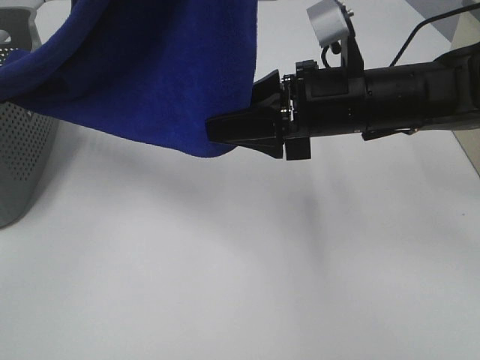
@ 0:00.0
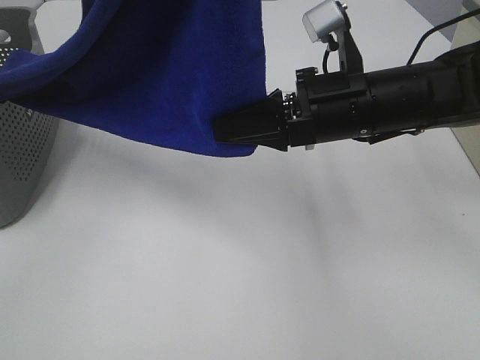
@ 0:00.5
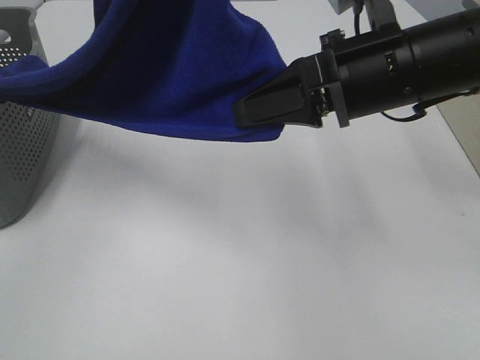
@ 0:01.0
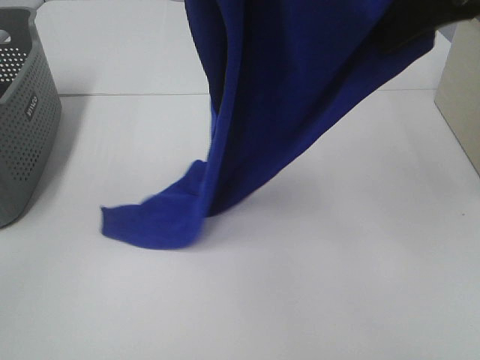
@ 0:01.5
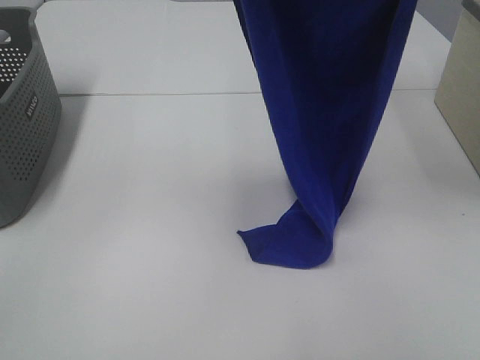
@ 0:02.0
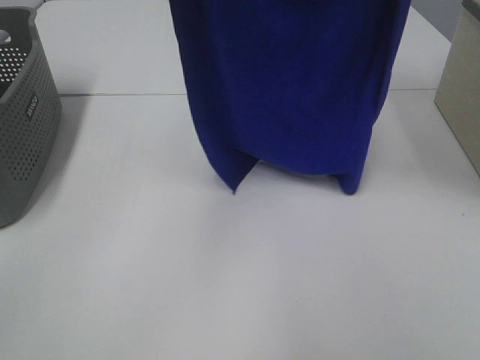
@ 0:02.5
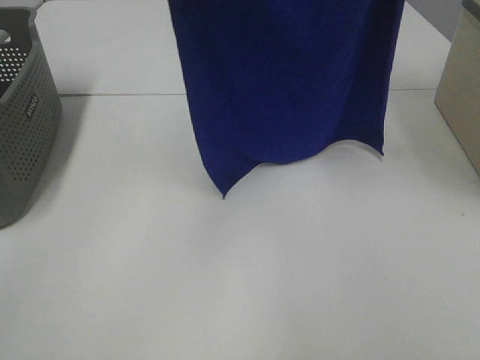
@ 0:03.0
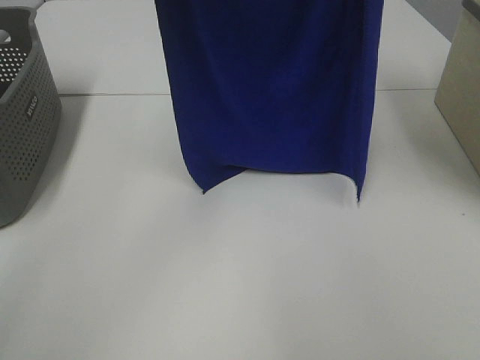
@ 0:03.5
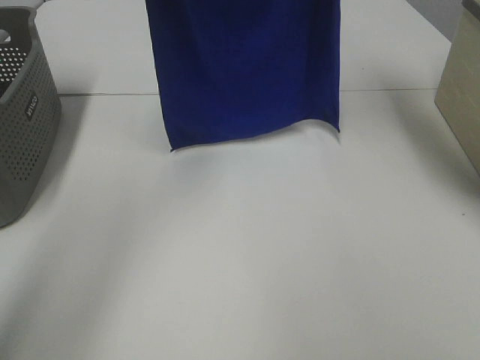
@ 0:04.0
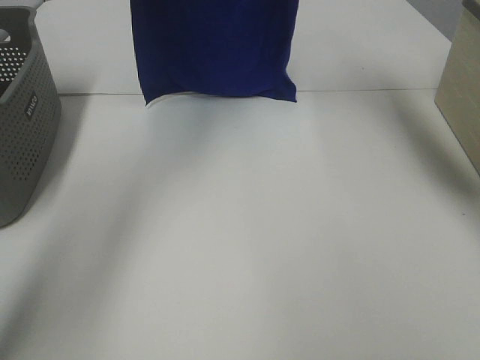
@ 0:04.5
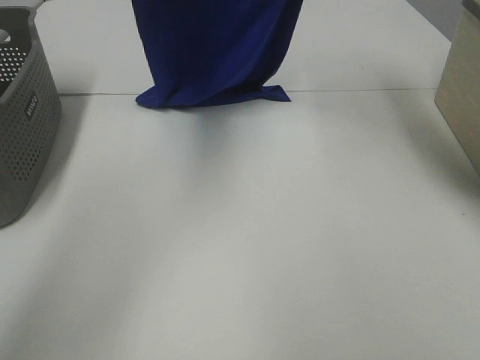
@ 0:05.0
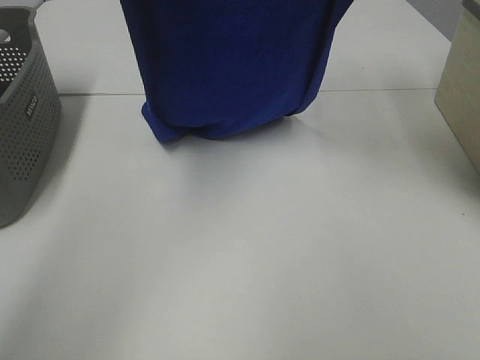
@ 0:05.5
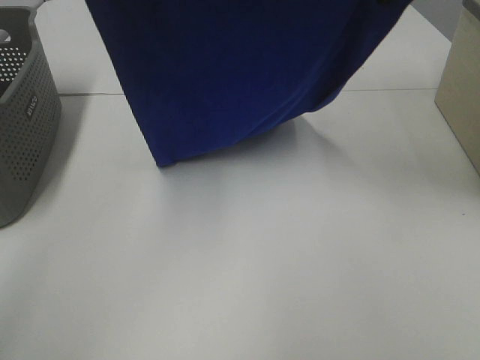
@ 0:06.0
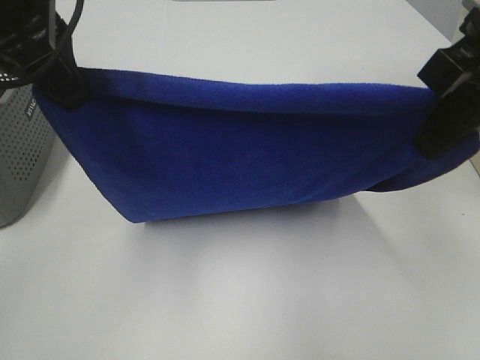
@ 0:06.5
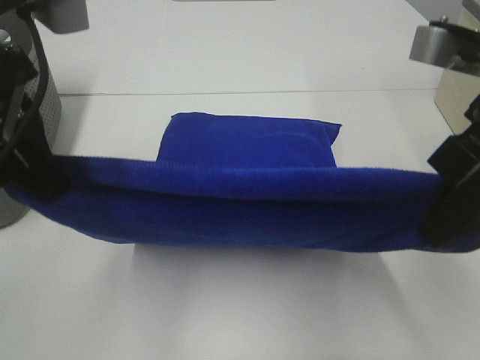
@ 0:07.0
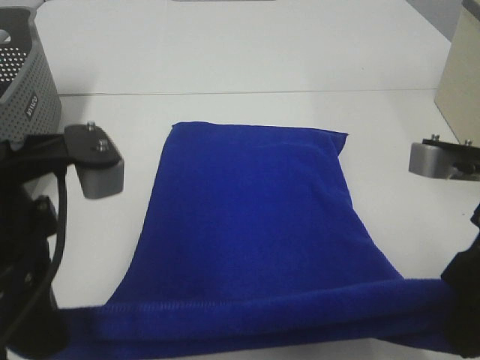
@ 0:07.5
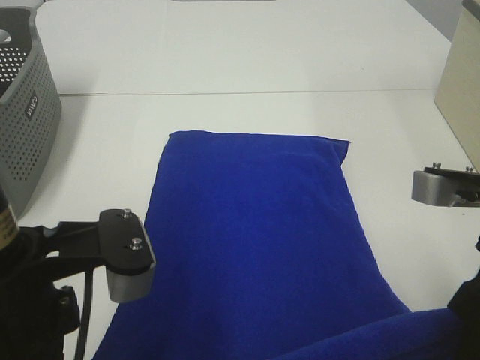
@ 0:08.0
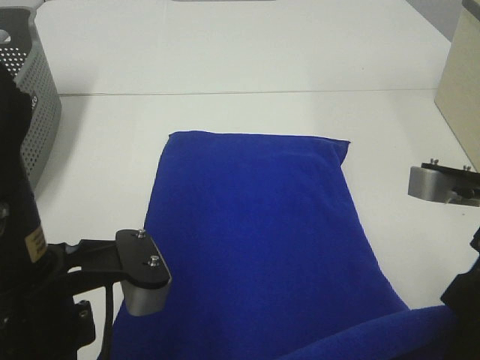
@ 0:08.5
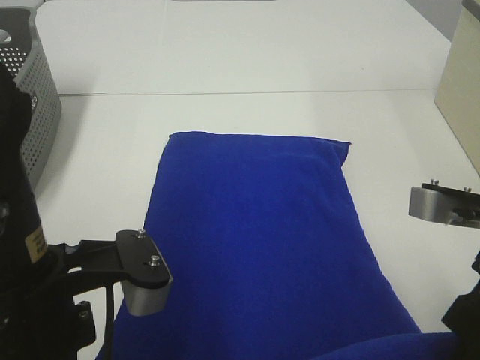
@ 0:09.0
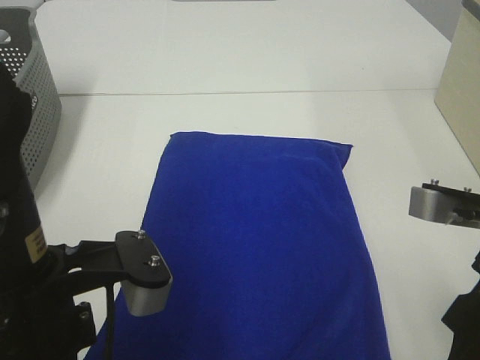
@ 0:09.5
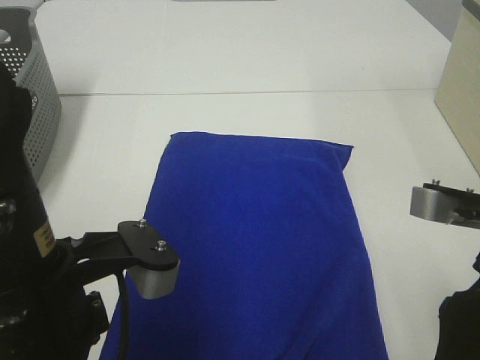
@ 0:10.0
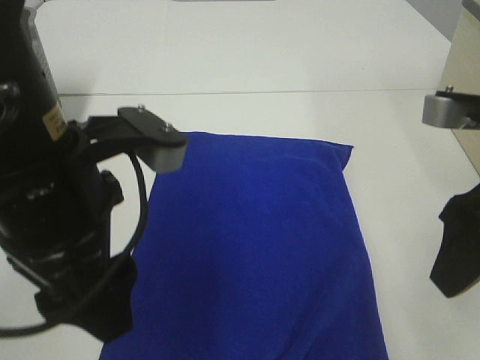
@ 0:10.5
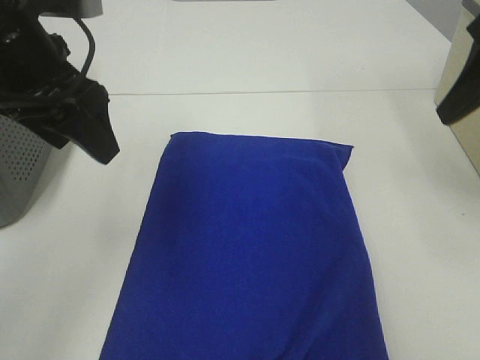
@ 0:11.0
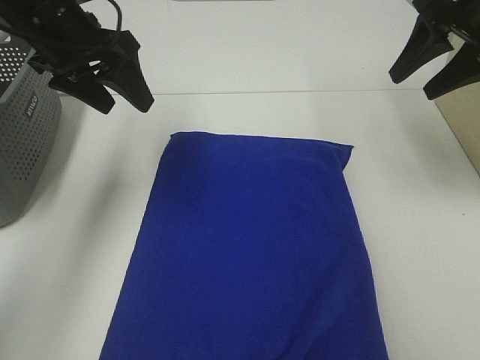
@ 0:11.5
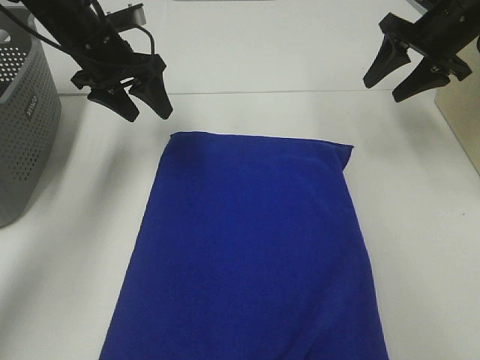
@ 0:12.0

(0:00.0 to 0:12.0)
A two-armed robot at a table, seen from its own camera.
Task of the whole recording: Remove the towel and place it.
Step, 0:00.5 - 0:05.5: Left hand: spread the blue towel flat on the table.
Step, 0:00.5 - 0:05.5: Right hand: spread the blue towel flat on the table.
0:00.0 - 0:02.0: The right gripper is displaced upward by about 25 cm, and closes its fingers. The left gripper moves forward, some 5 cm.
0:02.0 - 0:04.0: Both grippers move forward, roughly 15 cm.
0:04.0 - 0:06.0: Both grippers move backward and downward, roughly 15 cm.
0:06.0 - 0:08.0: The grippers both shift backward and downward by approximately 25 cm.
0:08.0 - 0:10.0: The right gripper opens its fingers, while the left gripper opens its fingers.
0:10.0 - 0:12.0: The two grippers go some 35 cm forward.

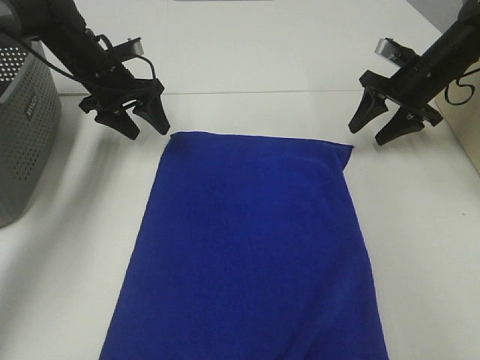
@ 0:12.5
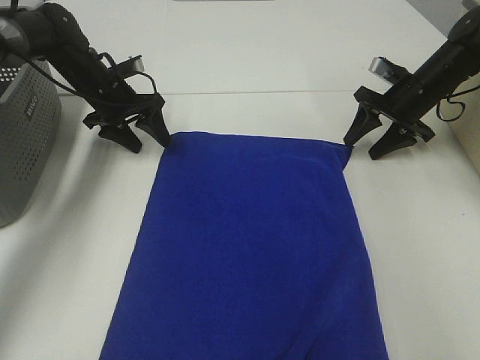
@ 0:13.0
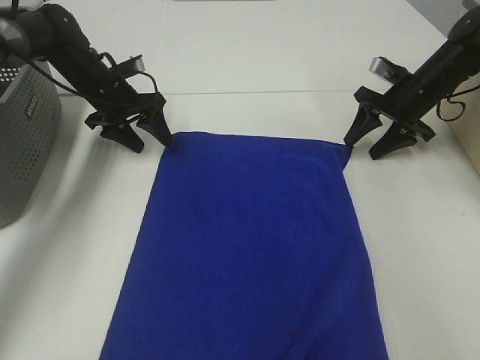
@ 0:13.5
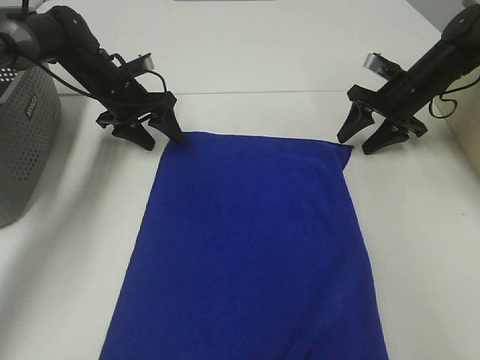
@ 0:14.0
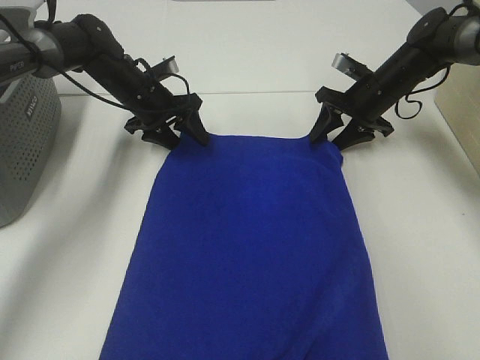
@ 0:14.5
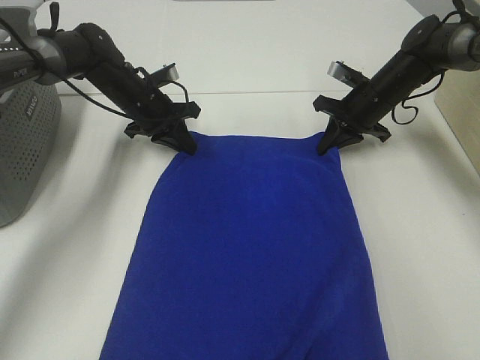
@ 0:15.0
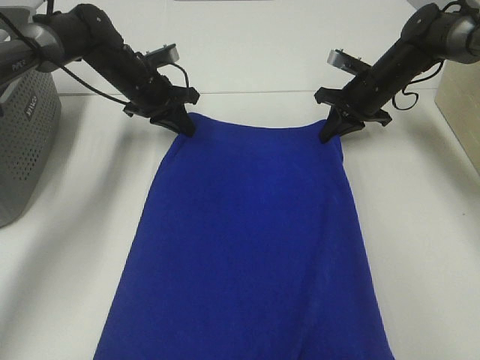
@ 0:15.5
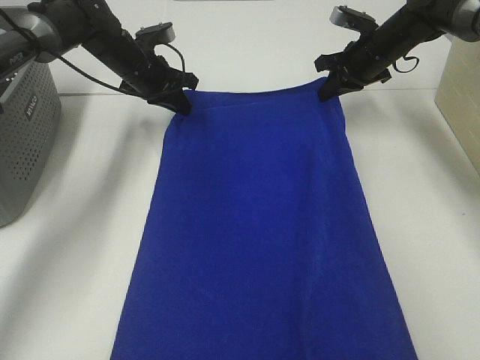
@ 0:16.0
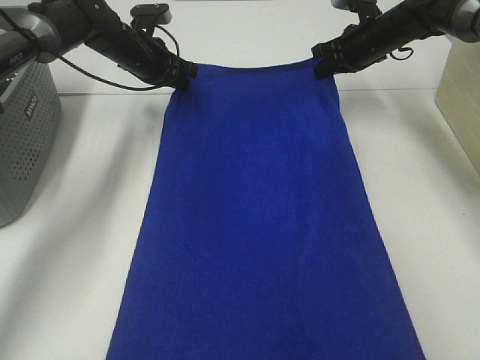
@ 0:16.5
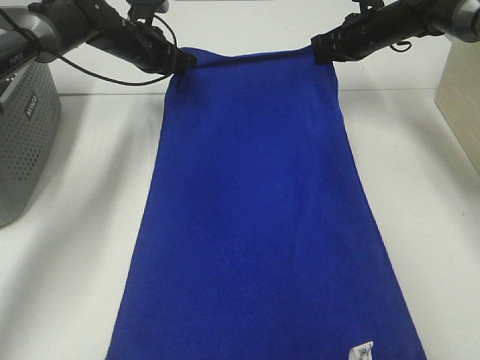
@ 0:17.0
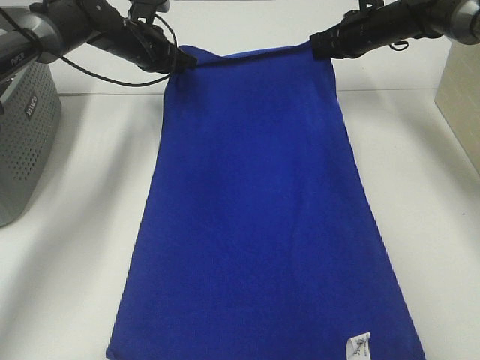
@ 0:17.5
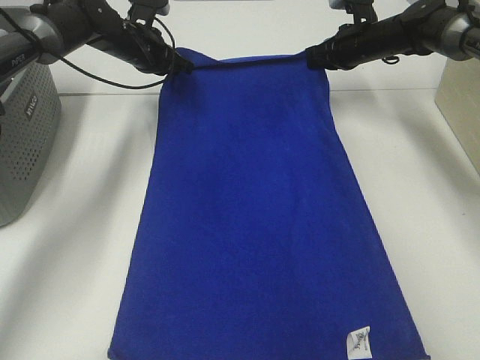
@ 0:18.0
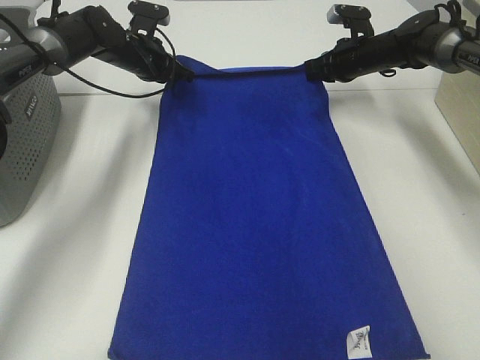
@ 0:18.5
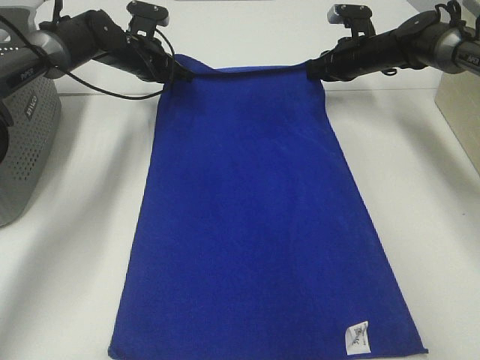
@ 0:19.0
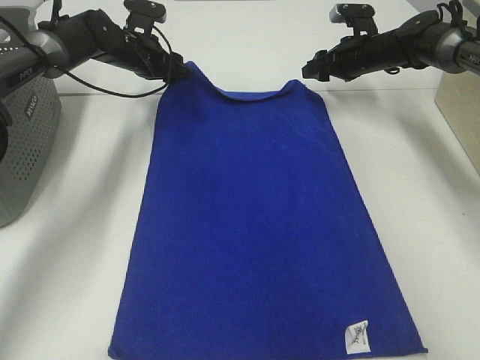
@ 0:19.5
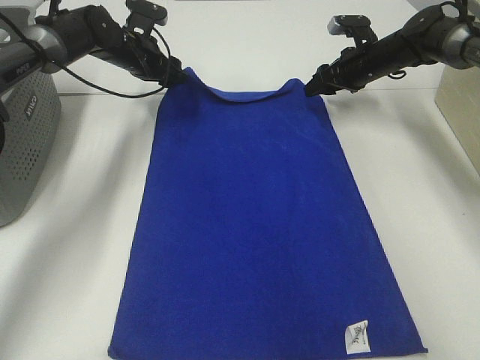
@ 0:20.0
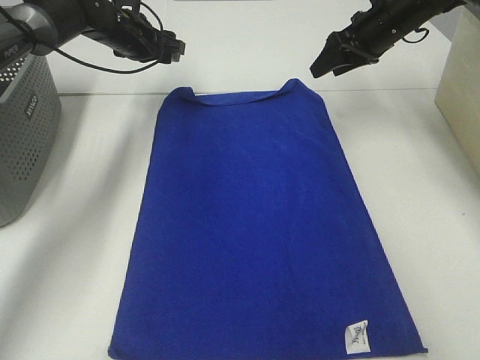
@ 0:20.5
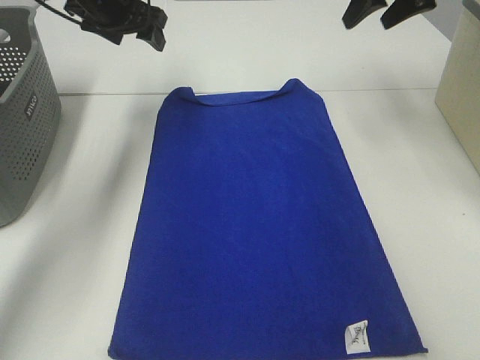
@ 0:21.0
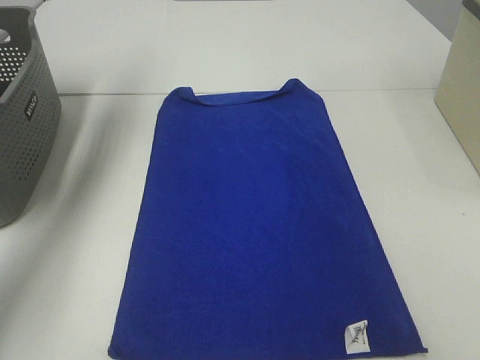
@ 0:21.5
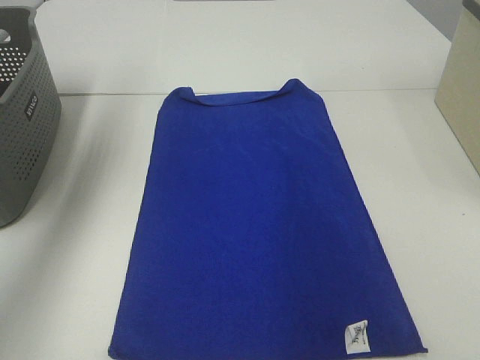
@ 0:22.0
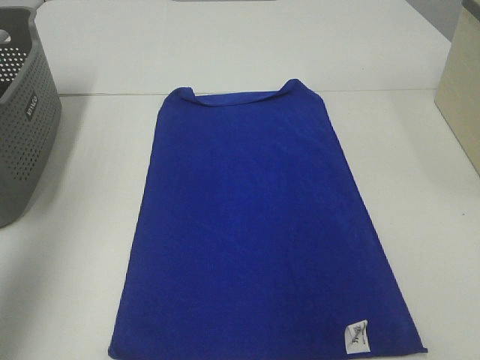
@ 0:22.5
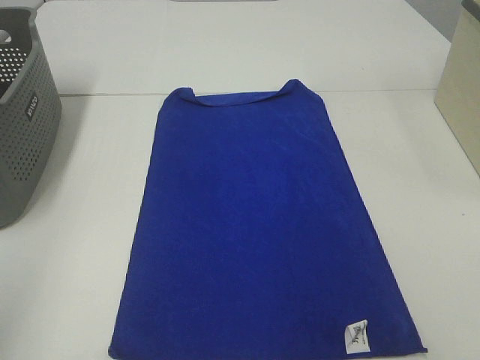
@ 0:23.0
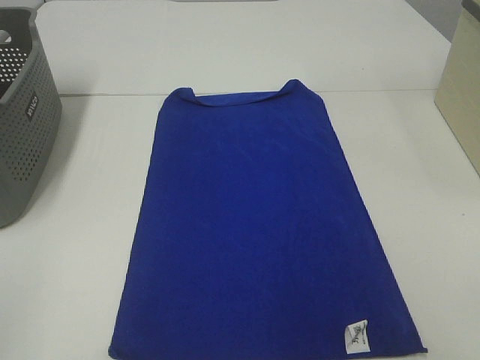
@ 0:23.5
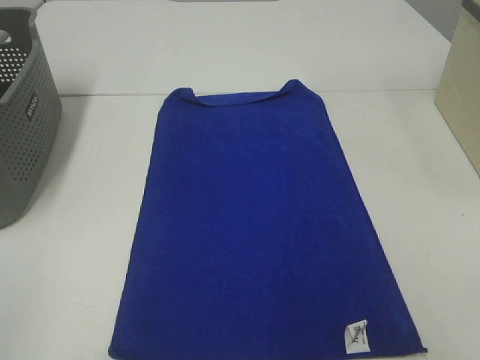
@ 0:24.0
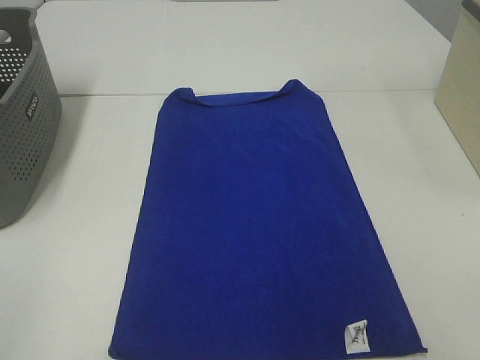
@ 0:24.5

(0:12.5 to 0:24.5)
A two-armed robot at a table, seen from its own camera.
Task of the whole recording: Remove the towel and place it.
0:12.5 - 0:14.5: The left gripper moves to the right, about 5 cm, while the right gripper heads to the left, covering about 5 cm.
0:14.5 - 0:16.5: The right gripper heads upward and forward, covering roughly 10 cm, and closes its fingers. Meanwhile the left gripper heads upward, covering roughly 5 cm, and closes up.
0:16.5 - 0:18.5: The grippers stay close to where they were, moving slightly.
0:18.5 - 0:20.5: The left gripper opens its fingers. Meanwhile the right gripper shifts about 10 cm upward, and opens its fingers.
0:20.5 - 0:22.5: Both grippers move backward and upward, approximately 50 cm.
0:22.5 - 0:24.5: The left gripper is displaced backward and downward by approximately 20 cm.

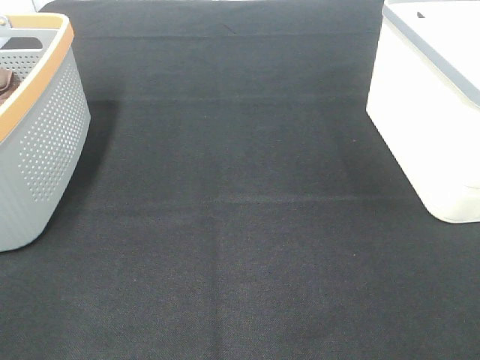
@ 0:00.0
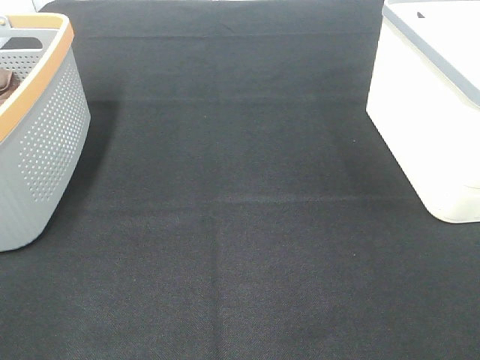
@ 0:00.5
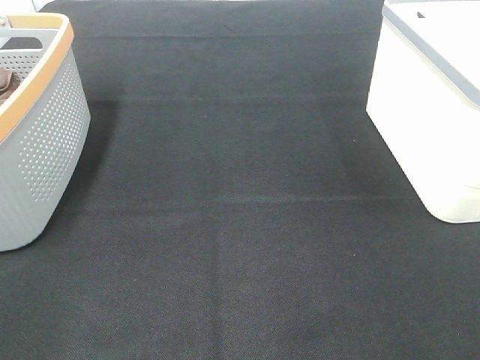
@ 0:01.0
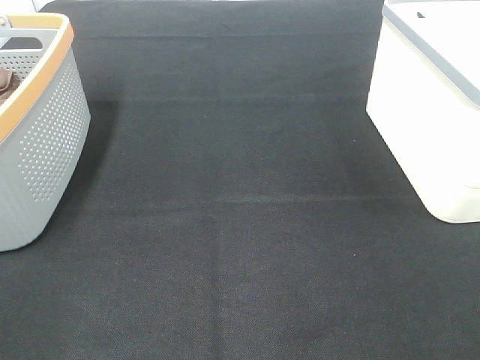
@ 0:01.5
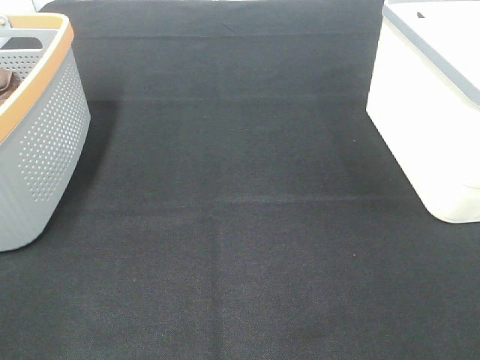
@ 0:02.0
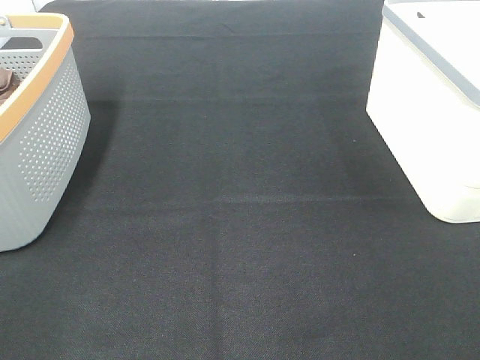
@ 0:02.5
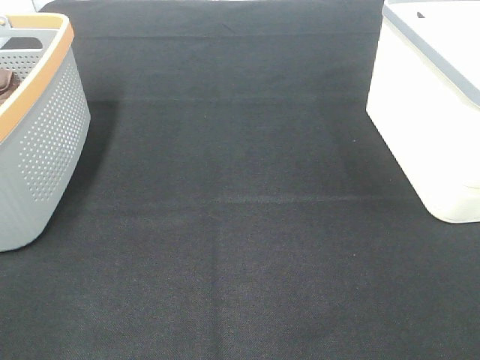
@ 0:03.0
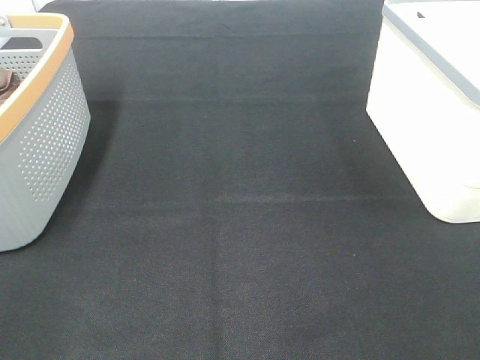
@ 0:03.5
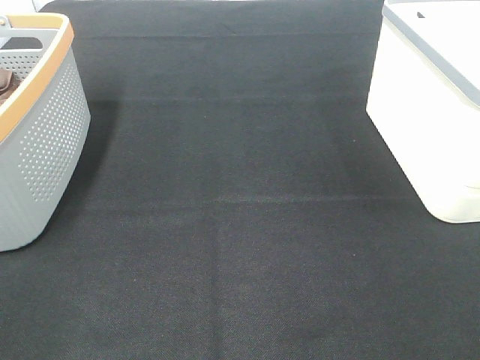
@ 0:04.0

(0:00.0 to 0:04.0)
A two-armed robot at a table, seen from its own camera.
Task of the whole recording: Remove the towel and place it.
0:00.0 - 0:04.0: Both grippers stay about where they are.
